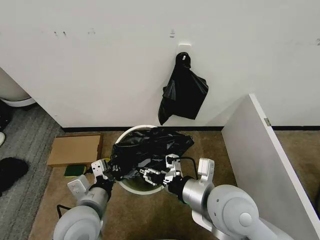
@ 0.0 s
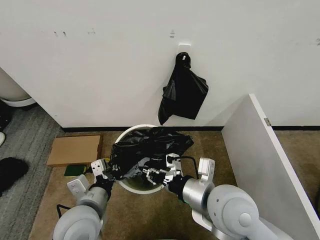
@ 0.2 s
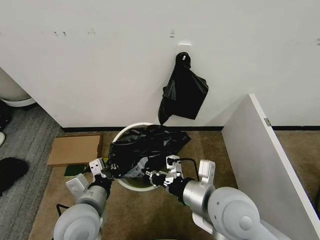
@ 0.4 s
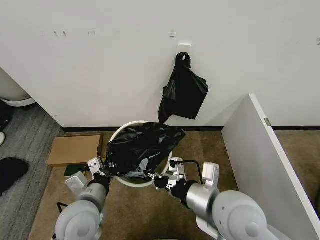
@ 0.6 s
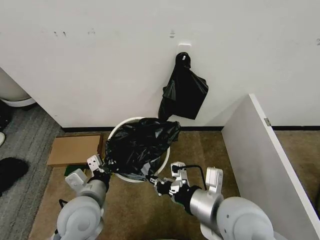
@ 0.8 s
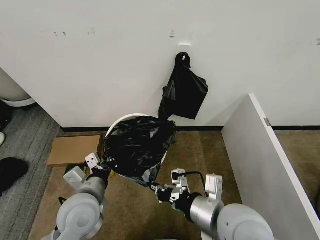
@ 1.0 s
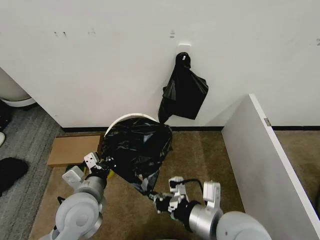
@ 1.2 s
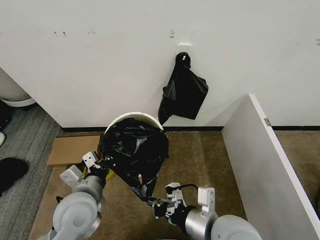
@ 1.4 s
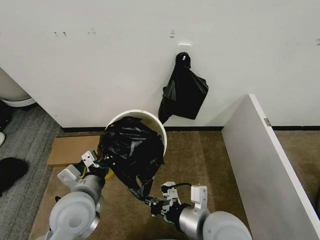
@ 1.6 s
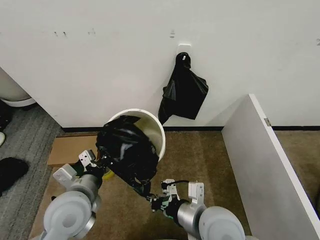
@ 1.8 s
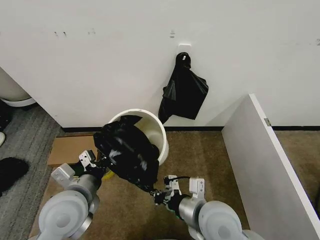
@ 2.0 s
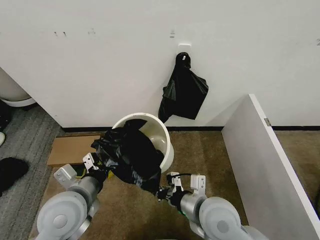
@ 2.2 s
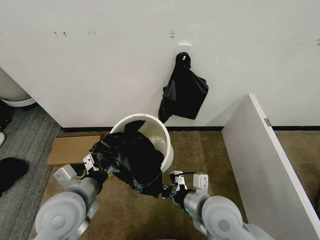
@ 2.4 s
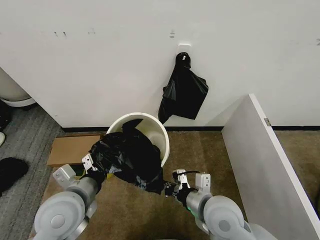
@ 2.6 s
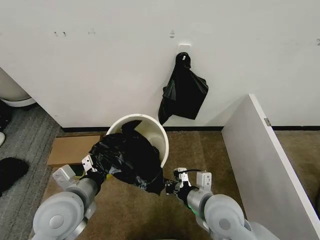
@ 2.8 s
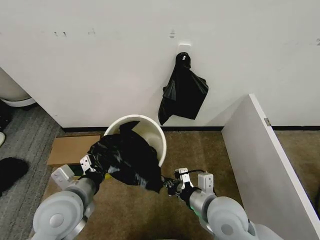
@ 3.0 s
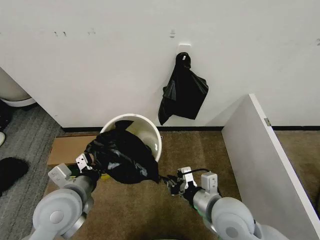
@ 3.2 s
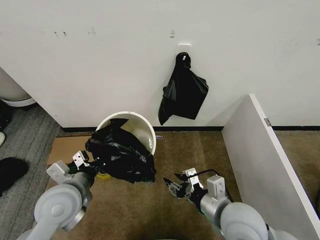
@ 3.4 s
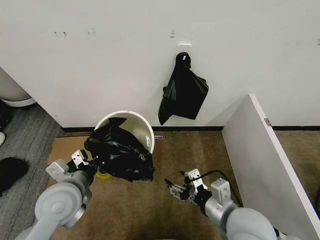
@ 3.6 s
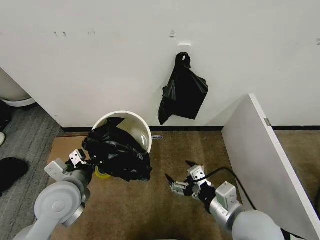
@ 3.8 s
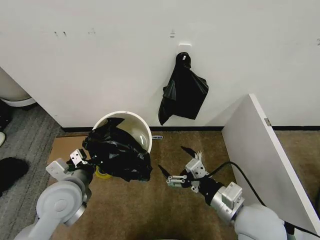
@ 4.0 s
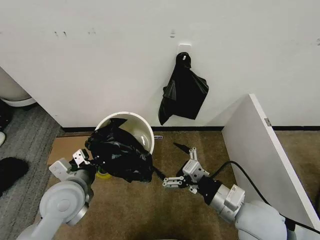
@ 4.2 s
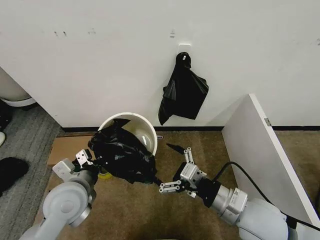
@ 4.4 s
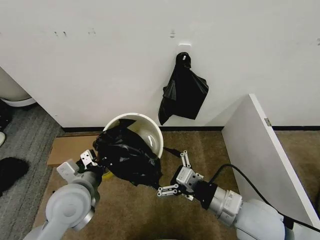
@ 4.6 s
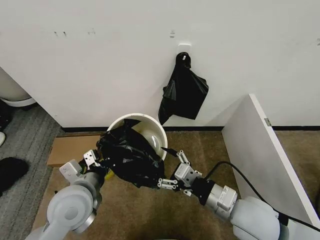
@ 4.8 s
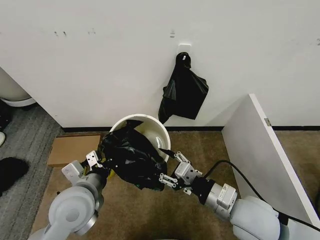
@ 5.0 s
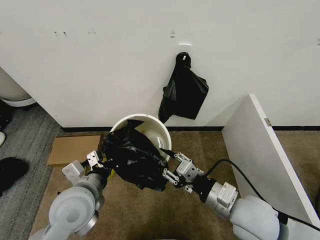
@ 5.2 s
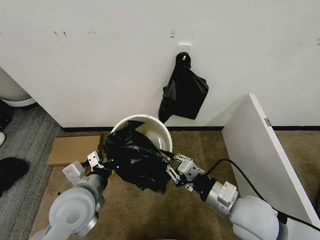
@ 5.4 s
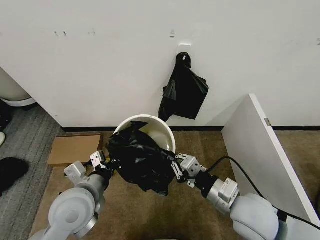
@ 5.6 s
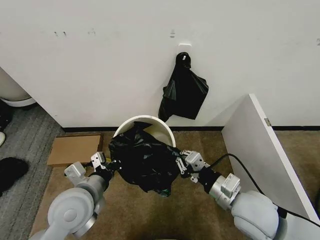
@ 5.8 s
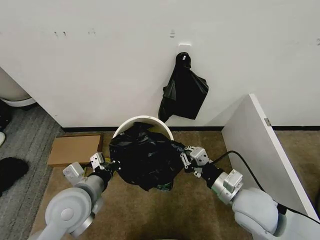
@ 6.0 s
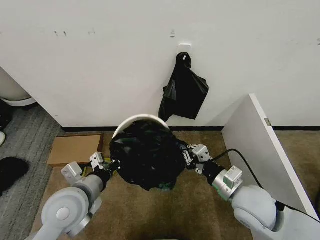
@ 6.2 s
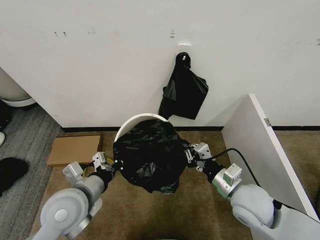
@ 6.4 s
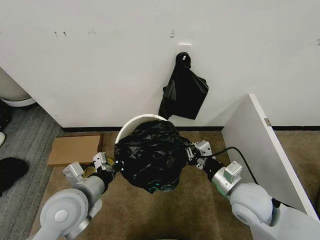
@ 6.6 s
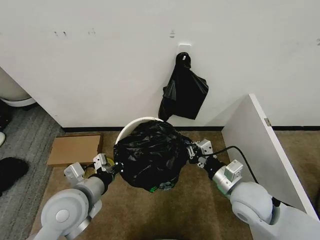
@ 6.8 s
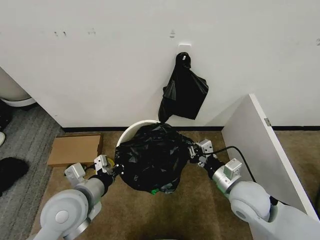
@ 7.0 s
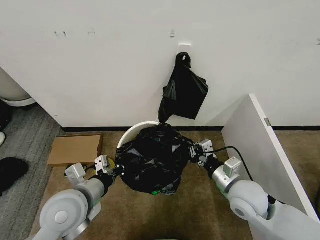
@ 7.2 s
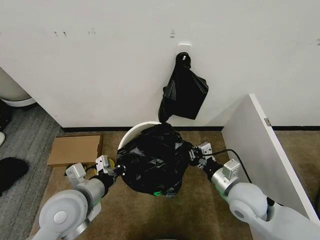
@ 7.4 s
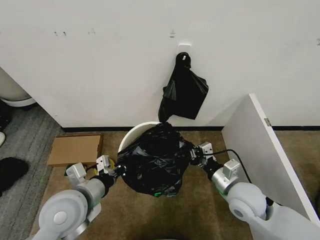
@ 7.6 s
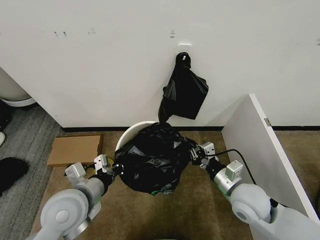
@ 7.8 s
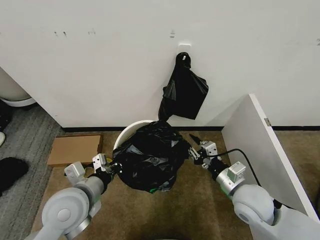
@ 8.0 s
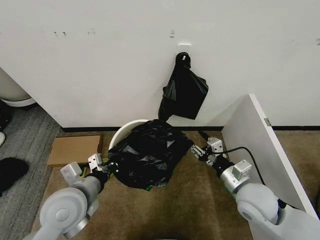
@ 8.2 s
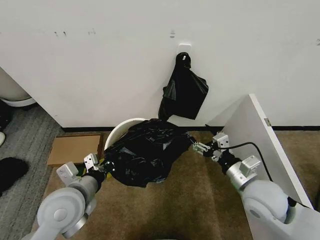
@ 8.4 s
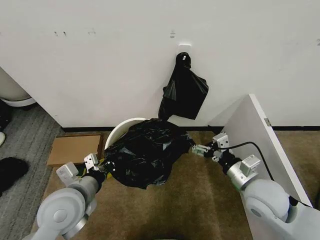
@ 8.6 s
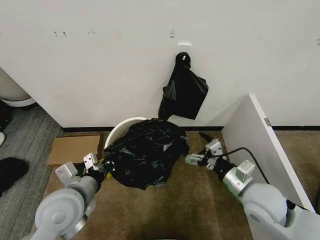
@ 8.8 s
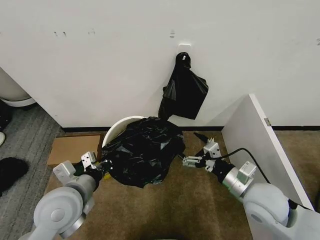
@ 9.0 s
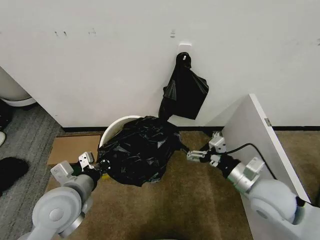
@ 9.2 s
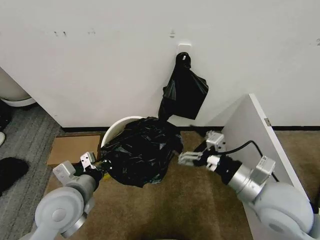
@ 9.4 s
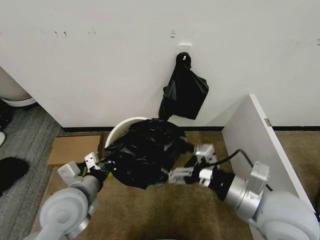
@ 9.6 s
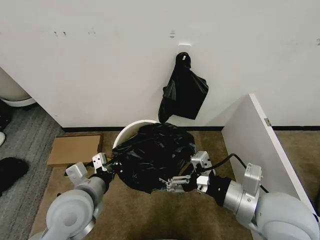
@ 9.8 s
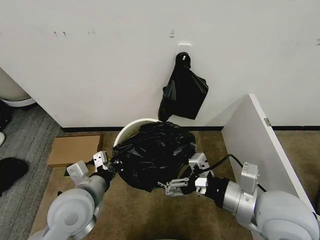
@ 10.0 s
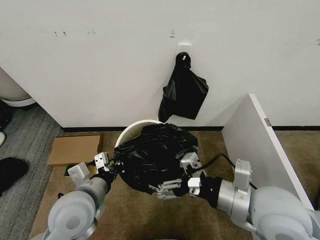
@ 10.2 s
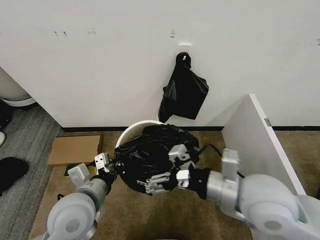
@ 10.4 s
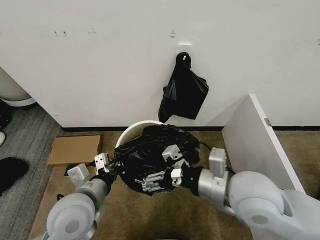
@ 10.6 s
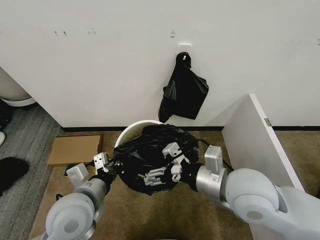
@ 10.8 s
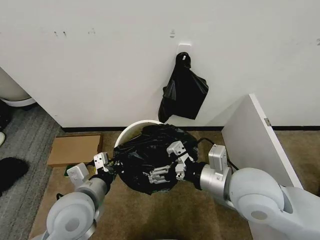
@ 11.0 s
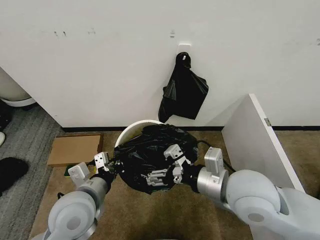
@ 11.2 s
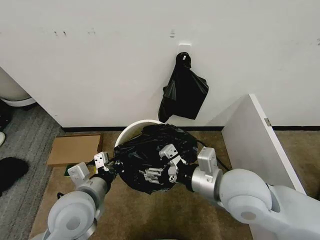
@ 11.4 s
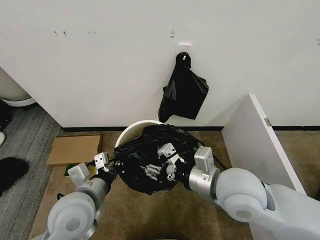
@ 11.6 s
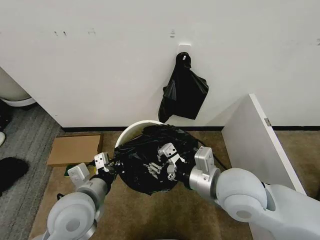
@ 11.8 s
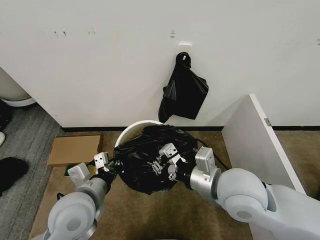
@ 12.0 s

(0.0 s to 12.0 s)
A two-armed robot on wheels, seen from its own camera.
Task of the whole recording: Place the garbage bag over the trash bin.
0.0 s - 1.6 s: The right gripper shifts by about 5 cm, and closes its fingers.
1.6 s - 3.0 s: The right gripper moves forward, some 5 cm.
3.0 s - 4.4 s: The right gripper travels to the right by roughly 5 cm, and opens its fingers.
4.4 s - 6.0 s: The right gripper closes up.
6.0 s - 7.6 s: The right gripper changes place by some 5 cm.
7.6 s - 9.0 s: The right gripper opens.
9.0 s - 10.4 s: The right gripper moves upward and to the left, roughly 15 cm.
10.4 s - 12.0 s: The right gripper closes its fingers.

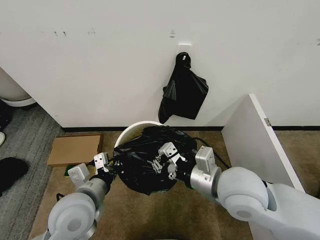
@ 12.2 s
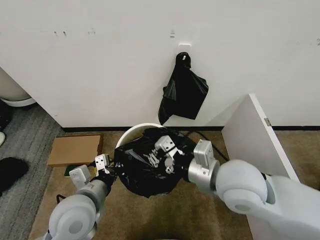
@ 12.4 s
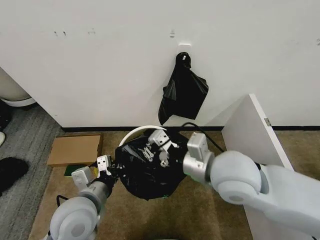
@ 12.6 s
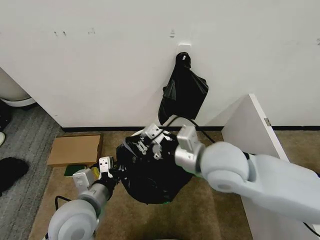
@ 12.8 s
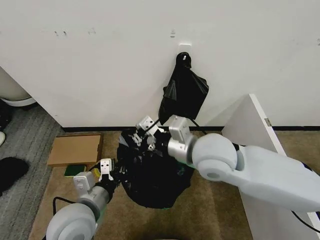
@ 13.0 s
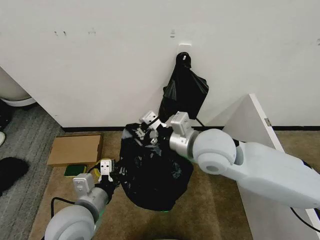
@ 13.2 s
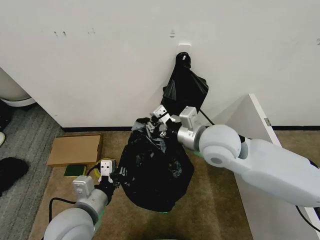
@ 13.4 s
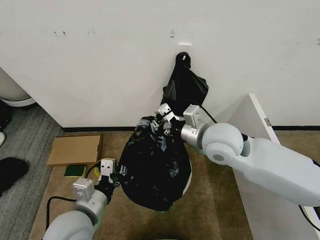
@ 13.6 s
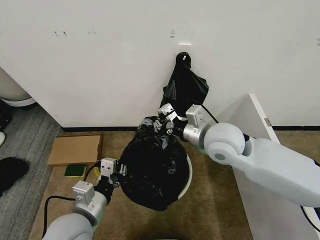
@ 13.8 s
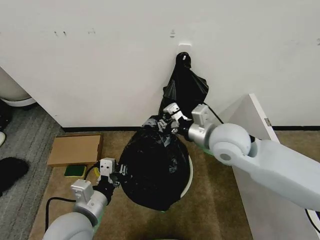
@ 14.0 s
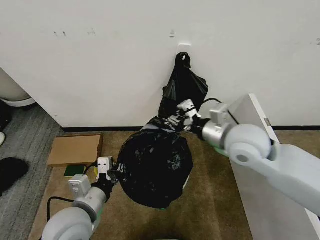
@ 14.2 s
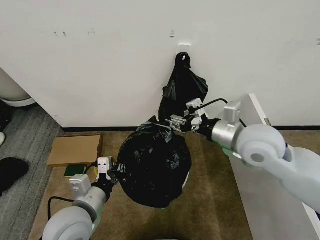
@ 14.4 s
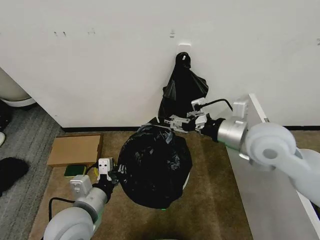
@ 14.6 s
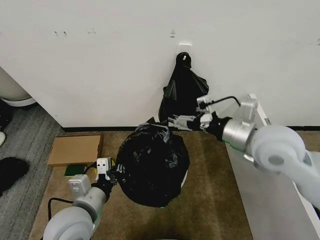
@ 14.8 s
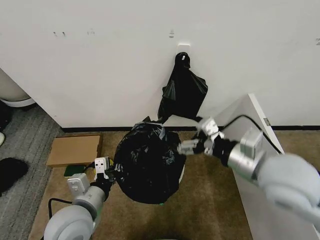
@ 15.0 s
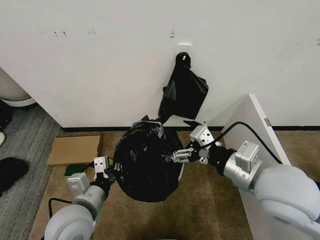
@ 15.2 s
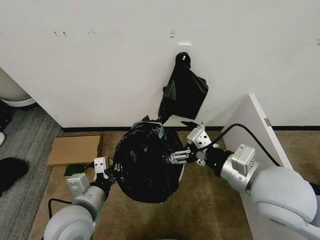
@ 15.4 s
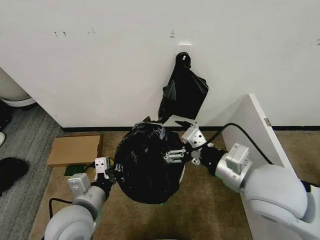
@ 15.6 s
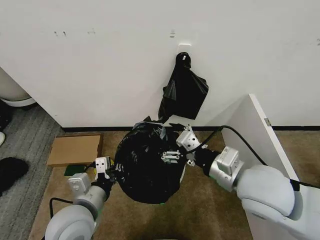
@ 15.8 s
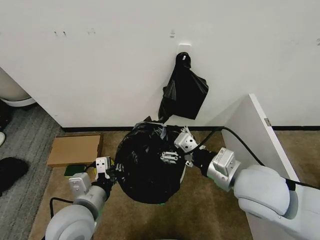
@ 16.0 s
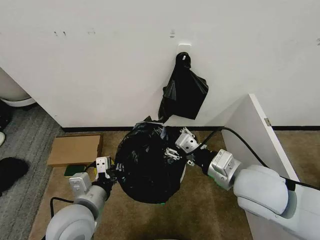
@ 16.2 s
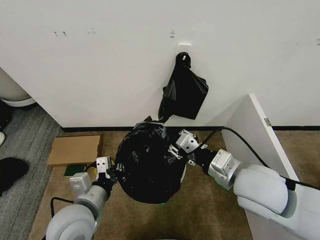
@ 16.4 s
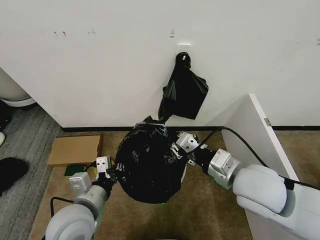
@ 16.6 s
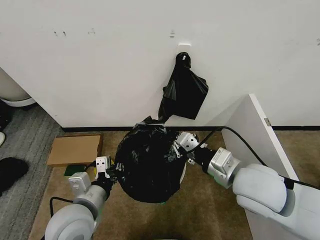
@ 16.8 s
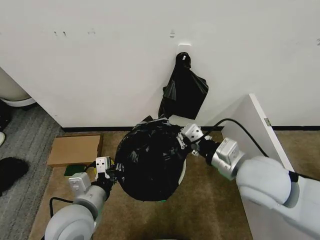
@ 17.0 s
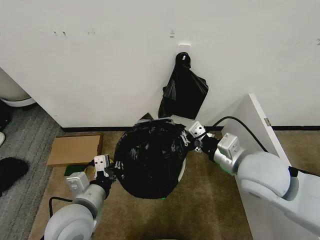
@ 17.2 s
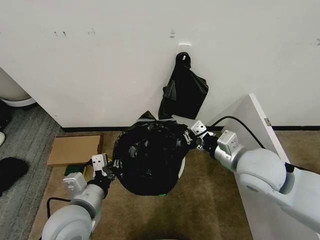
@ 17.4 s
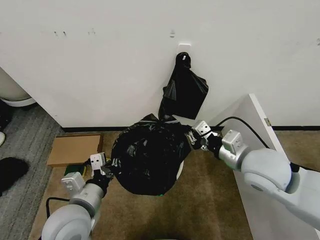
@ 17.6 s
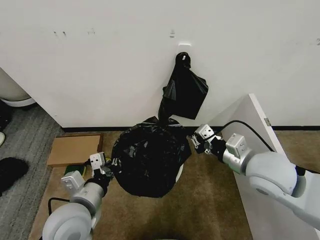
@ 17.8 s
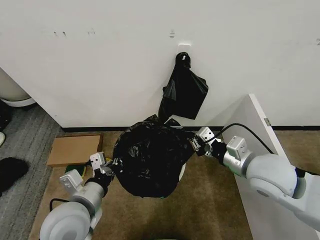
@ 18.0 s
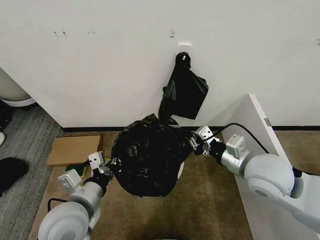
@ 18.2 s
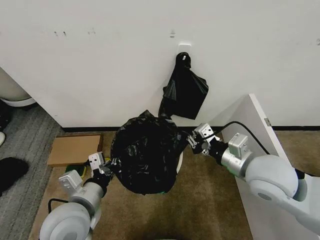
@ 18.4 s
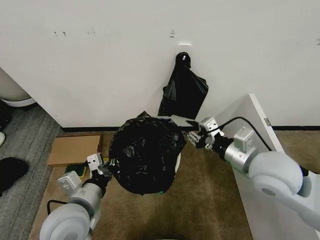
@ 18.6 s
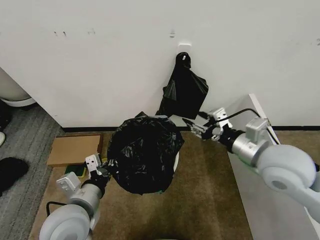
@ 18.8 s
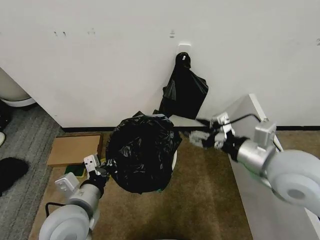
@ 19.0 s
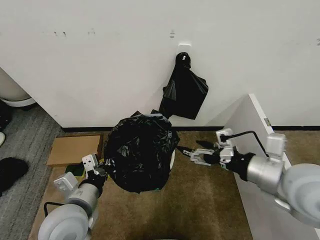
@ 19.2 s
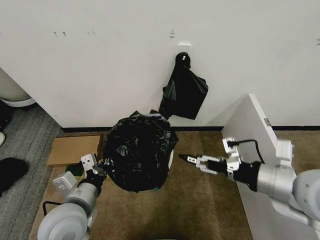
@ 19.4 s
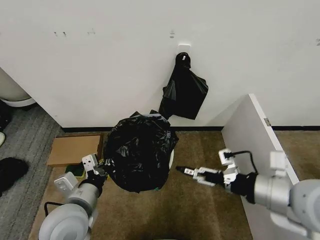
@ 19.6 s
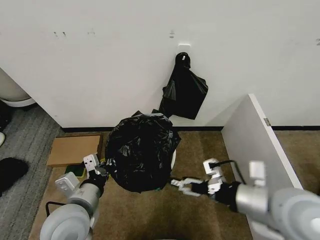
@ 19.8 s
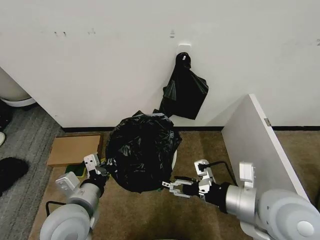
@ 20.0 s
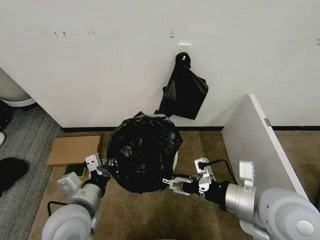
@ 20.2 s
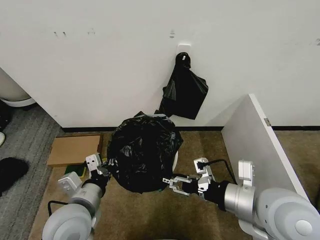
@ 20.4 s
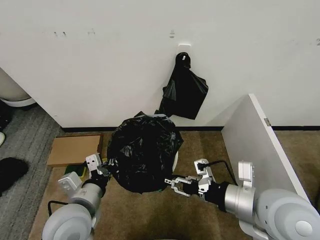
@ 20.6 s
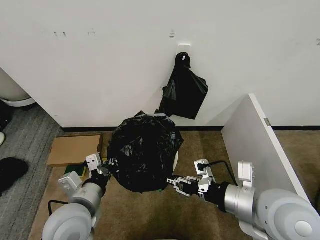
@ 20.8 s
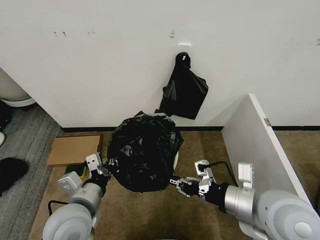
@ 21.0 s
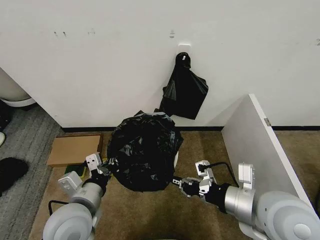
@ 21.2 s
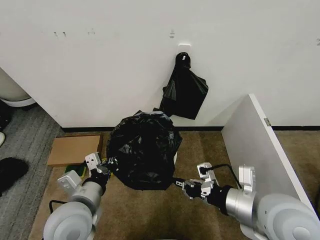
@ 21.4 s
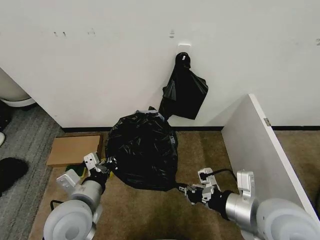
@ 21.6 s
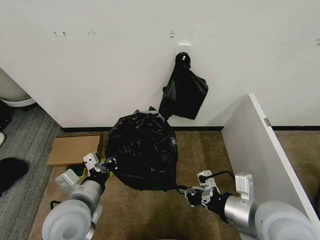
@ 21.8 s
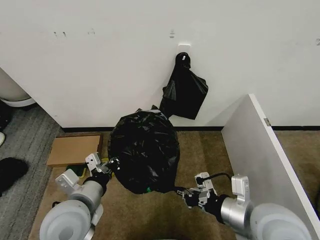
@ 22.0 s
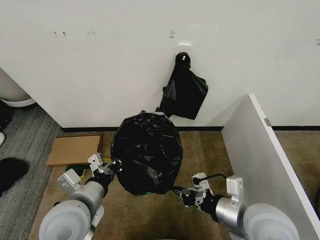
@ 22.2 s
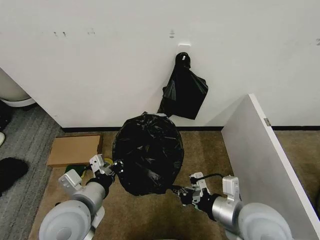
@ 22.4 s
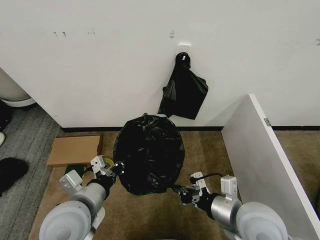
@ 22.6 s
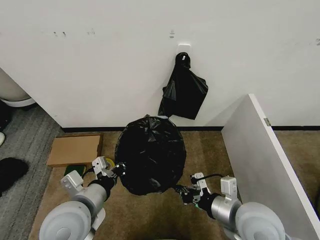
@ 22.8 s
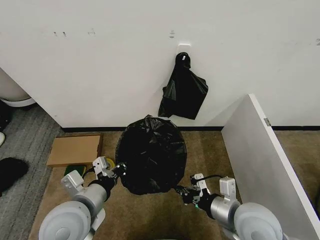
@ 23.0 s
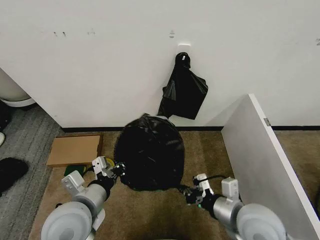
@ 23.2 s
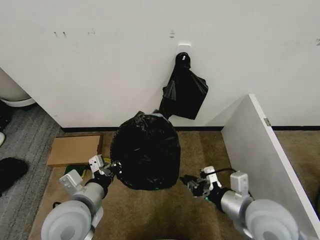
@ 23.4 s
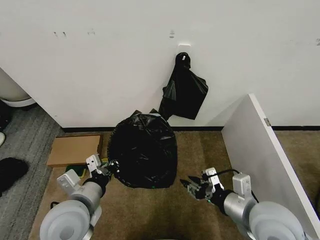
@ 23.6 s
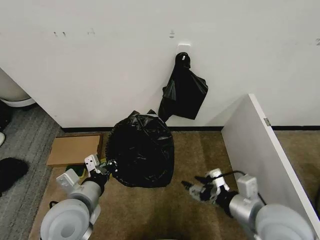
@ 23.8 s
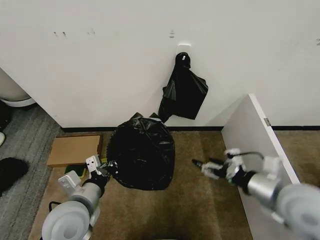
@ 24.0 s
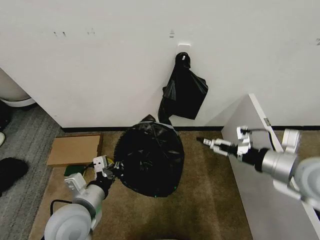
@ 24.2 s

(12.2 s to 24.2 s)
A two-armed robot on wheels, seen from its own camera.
Task of the whole recording: Place the garbage bag over the trash bin.
12.2 s - 13.8 s: The right gripper goes some 10 cm forward.
13.8 s - 15.2 s: The right gripper goes approximately 15 cm backward and to the right, and opens its fingers.
15.2 s - 16.6 s: The right gripper closes its fingers.
16.6 s - 18.2 s: The right gripper shifts by some 5 cm.
18.2 s - 19.8 s: The right gripper moves backward, approximately 10 cm, and opens.
19.8 s - 21.2 s: The right gripper closes up.
21.2 s - 22.6 s: The right gripper moves downward, some 5 cm.
22.6 s - 24.2 s: The right gripper travels to the right and upward by approximately 15 cm, and opens up.
